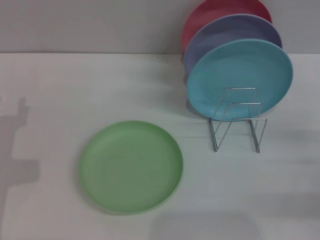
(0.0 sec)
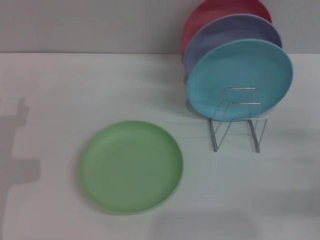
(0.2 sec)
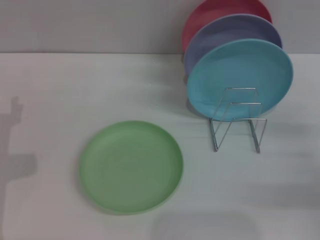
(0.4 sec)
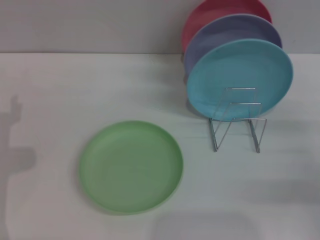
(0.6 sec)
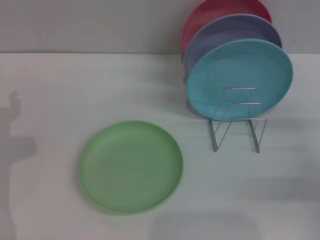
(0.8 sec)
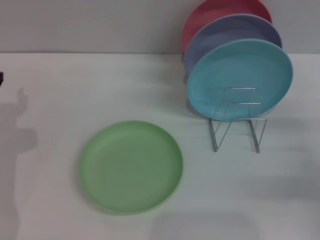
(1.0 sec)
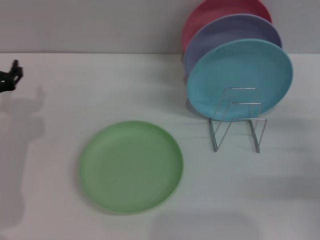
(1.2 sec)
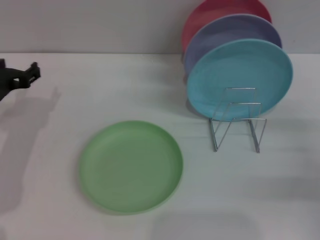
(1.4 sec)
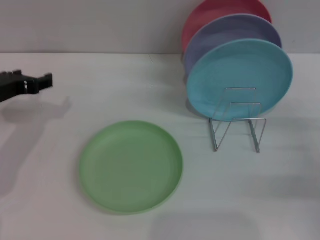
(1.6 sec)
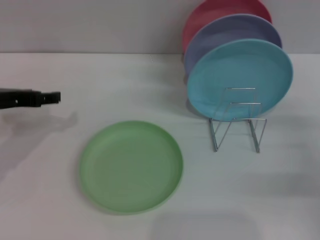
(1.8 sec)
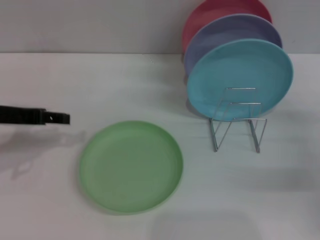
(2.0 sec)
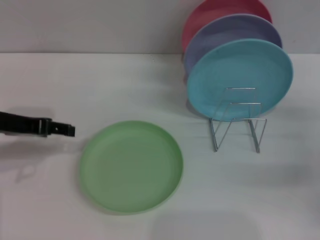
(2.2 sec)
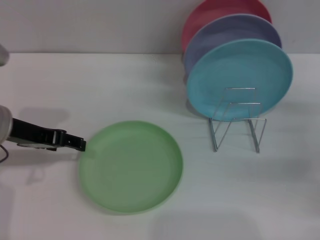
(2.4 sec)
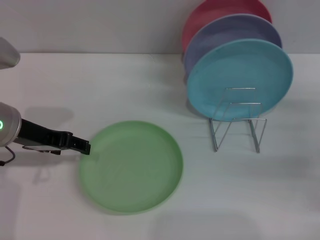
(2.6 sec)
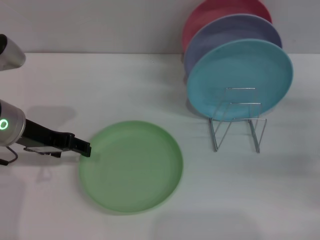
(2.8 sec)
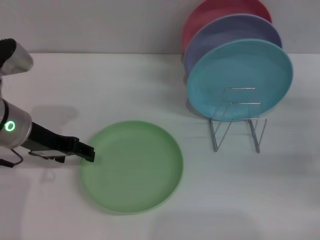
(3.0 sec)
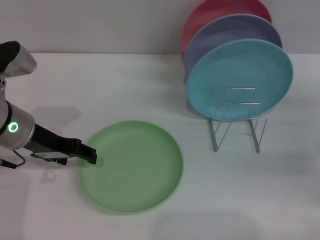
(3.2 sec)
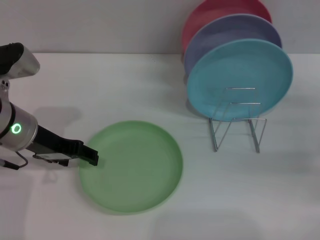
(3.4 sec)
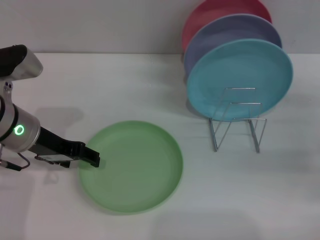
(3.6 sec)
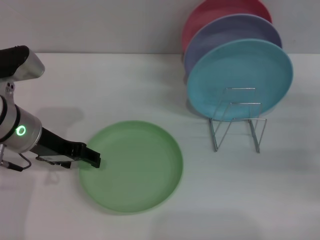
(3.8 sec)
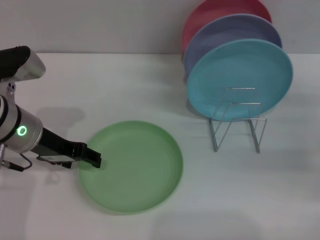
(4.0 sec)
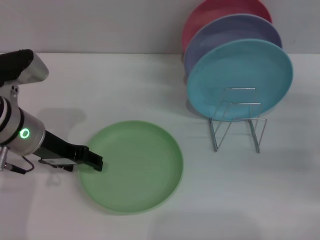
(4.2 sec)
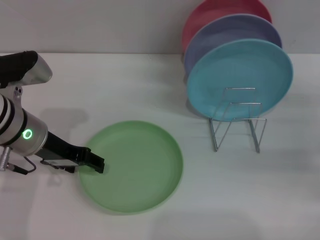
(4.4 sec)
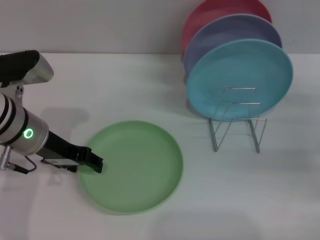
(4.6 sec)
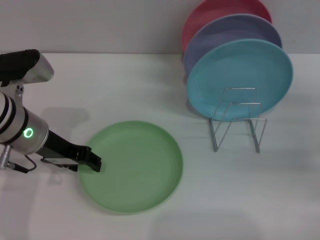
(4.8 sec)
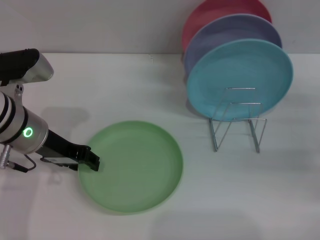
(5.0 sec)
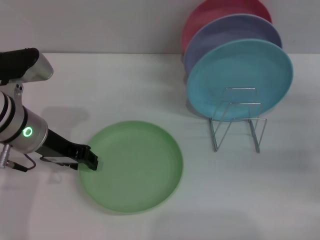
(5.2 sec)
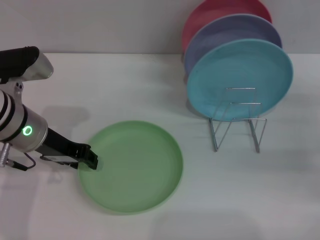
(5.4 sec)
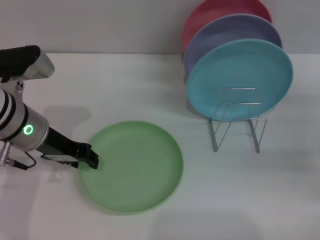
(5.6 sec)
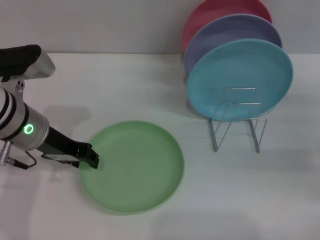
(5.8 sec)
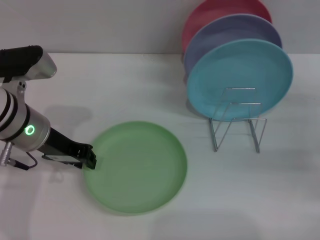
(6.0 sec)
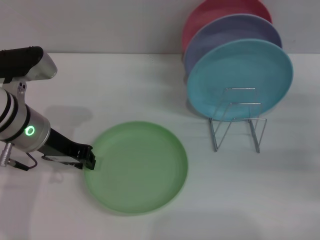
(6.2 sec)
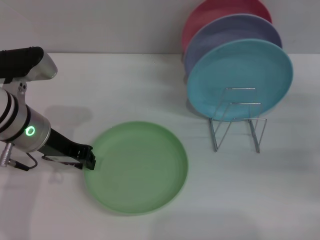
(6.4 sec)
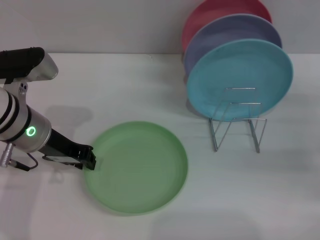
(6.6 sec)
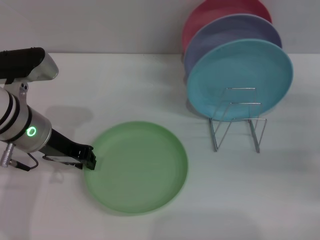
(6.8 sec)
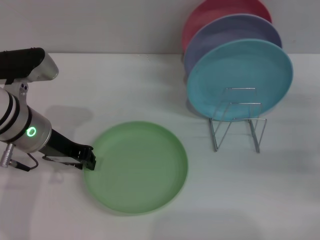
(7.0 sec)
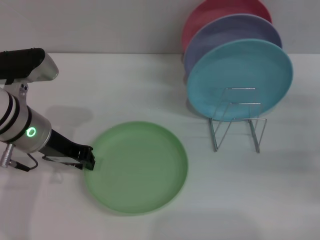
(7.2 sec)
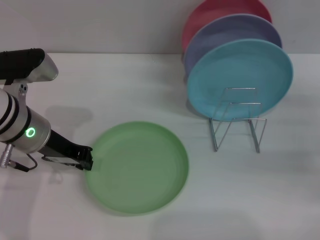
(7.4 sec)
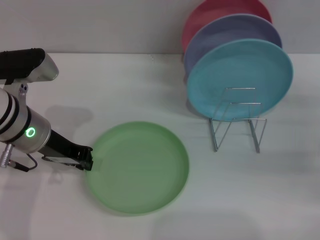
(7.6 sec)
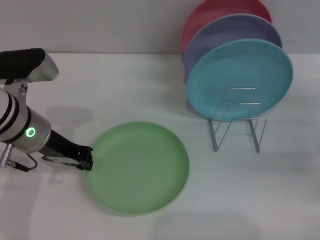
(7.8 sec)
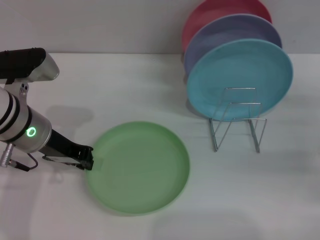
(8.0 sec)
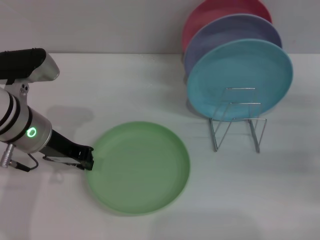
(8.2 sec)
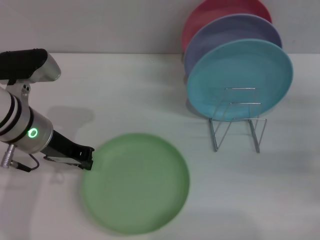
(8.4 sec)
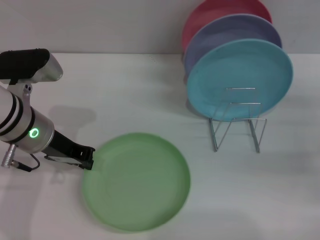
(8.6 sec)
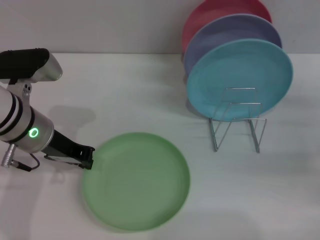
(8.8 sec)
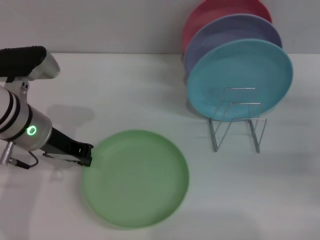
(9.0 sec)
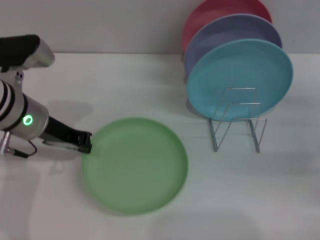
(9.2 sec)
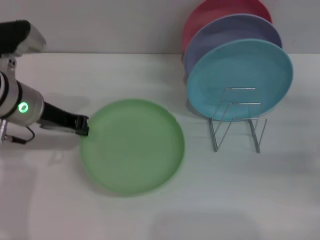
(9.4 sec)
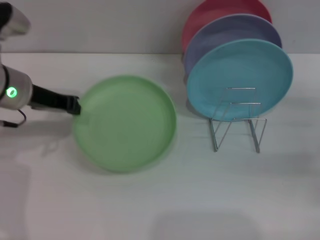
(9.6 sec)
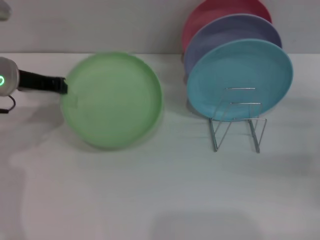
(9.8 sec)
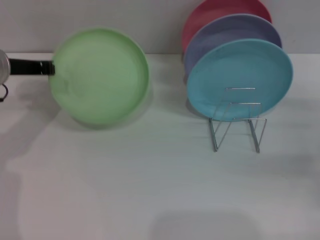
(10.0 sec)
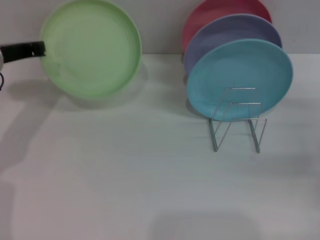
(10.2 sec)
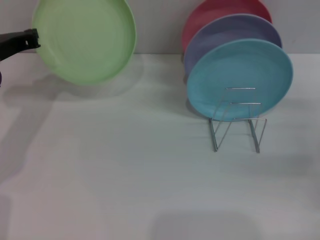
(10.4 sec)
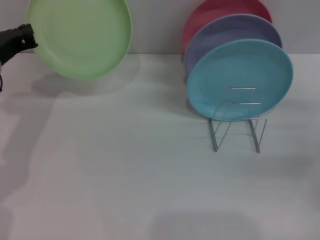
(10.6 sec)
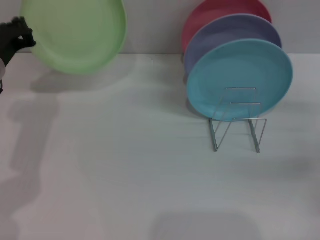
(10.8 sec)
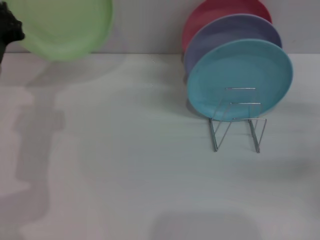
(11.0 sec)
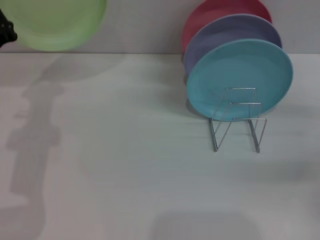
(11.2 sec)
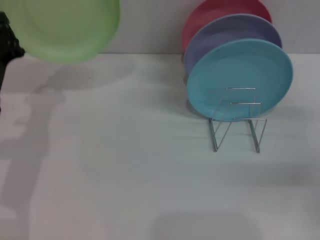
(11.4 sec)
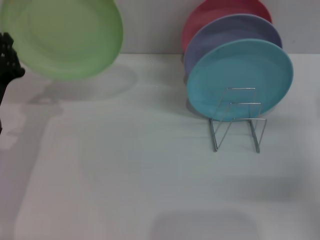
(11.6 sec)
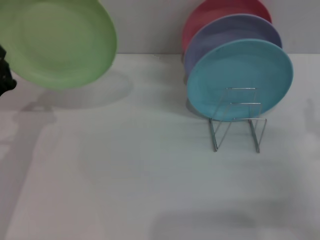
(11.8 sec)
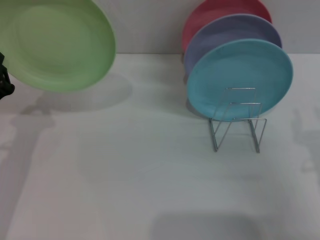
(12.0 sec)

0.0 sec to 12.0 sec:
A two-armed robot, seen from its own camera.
Task of the whole recording: Grip the plate with one hand, pass it to the other, then set it on the shelf.
Step, 0.0 sec to 9.8 sec: Pick up the plate with the left gripper.
0.0 sec to 1.6 sec: The left gripper moves upward and forward, roughly 10 cm.
1.6 sec to 3.0 sec: The left gripper goes about 5 cm to the right.
3.0 sec to 4.4 sec: The grippers move only a little.
4.4 sec to 6.0 sec: The left gripper closes its fingers.
6.0 sec to 7.6 sec: The left gripper closes its fingers.
7.6 sec to 9.0 sec: Both grippers stay about where they are.
9.0 sec to 10.4 sec: The left gripper goes some 5 cm to the left.
10.4 sec to 12.0 sec: The right gripper moves to the left and backward, about 15 cm; the left gripper is displaced backward and downward by roughly 15 cm.

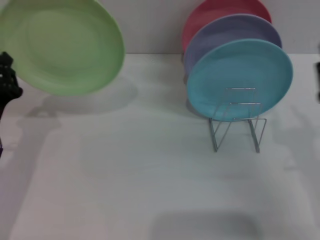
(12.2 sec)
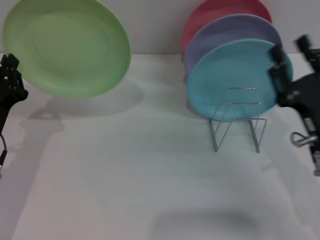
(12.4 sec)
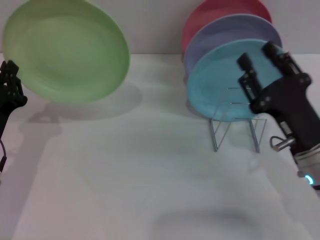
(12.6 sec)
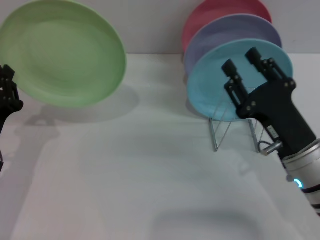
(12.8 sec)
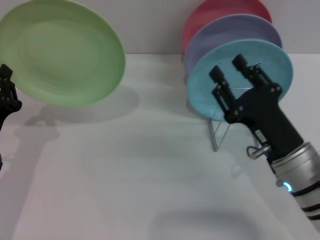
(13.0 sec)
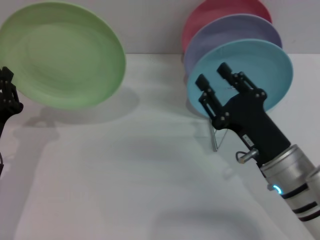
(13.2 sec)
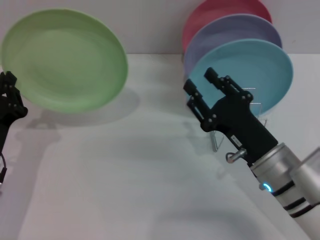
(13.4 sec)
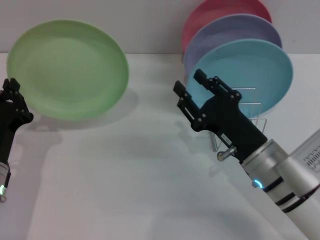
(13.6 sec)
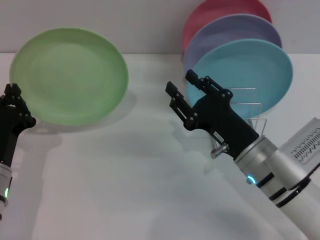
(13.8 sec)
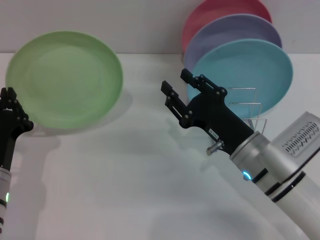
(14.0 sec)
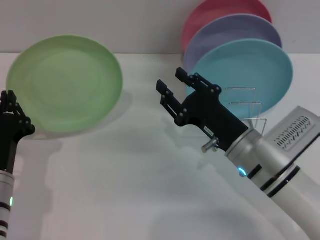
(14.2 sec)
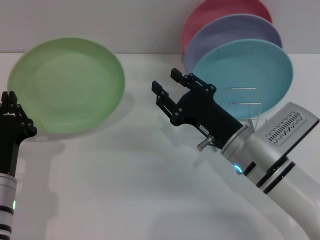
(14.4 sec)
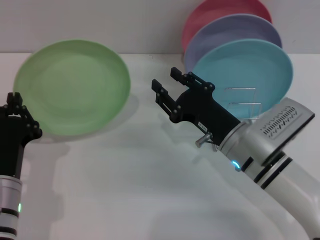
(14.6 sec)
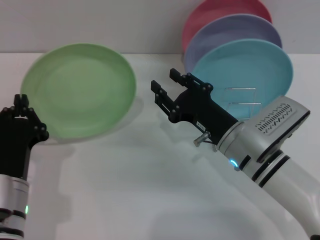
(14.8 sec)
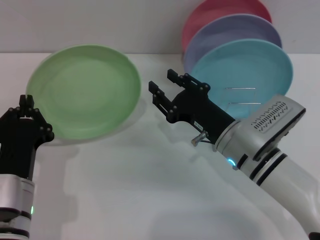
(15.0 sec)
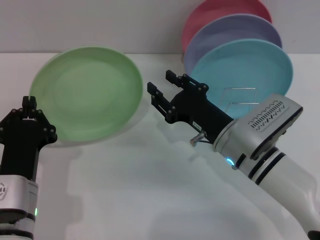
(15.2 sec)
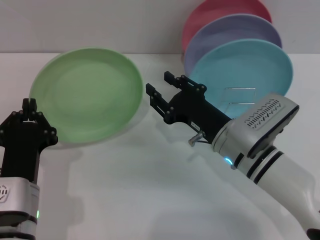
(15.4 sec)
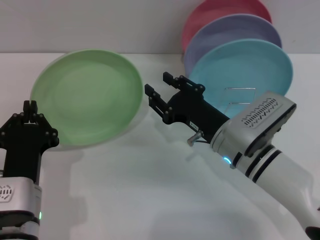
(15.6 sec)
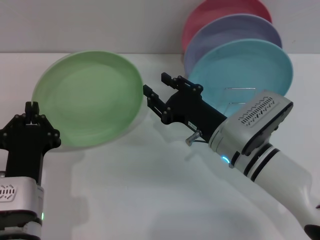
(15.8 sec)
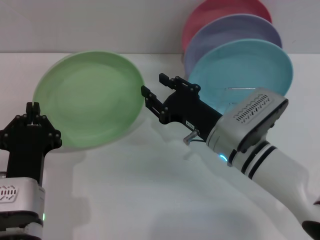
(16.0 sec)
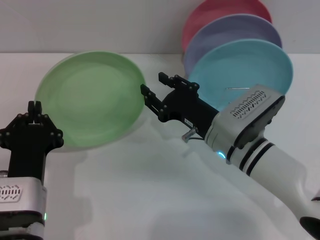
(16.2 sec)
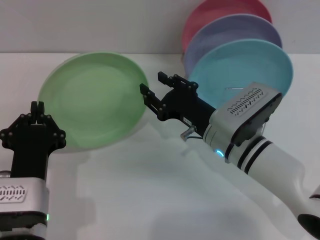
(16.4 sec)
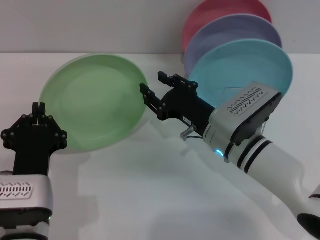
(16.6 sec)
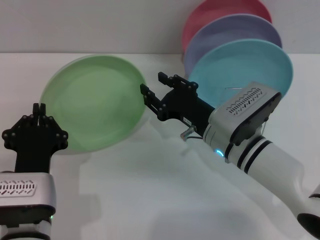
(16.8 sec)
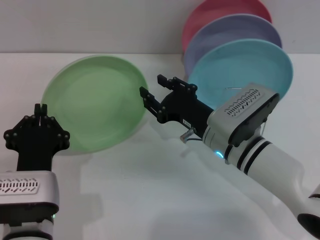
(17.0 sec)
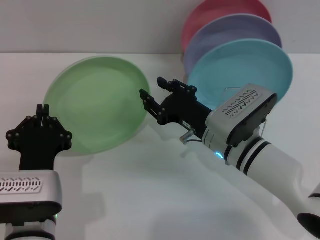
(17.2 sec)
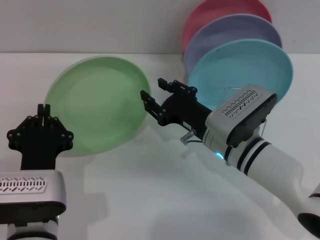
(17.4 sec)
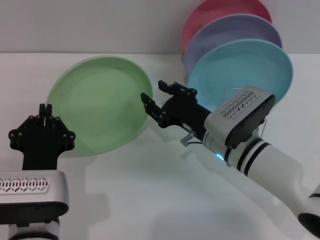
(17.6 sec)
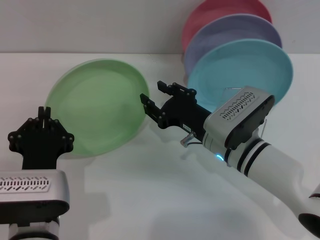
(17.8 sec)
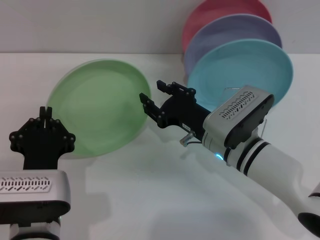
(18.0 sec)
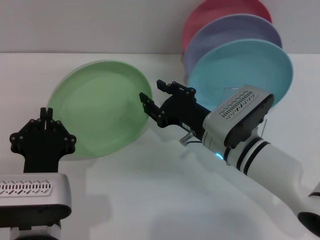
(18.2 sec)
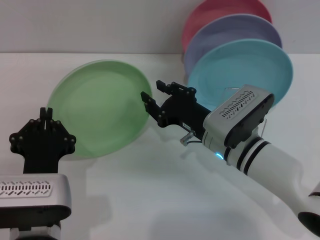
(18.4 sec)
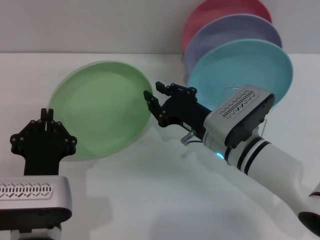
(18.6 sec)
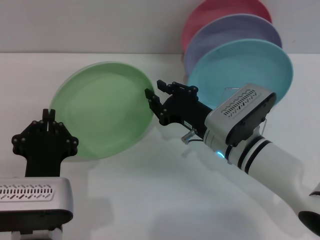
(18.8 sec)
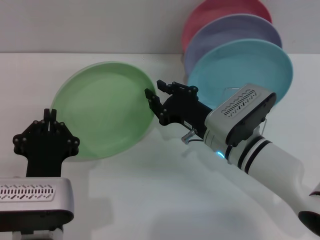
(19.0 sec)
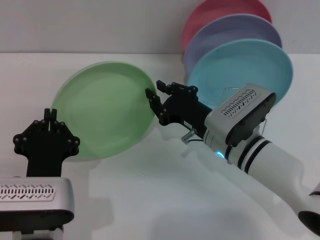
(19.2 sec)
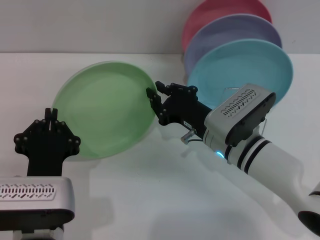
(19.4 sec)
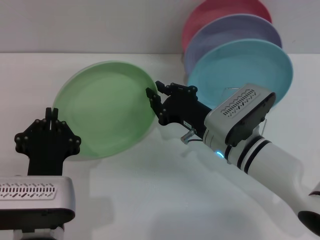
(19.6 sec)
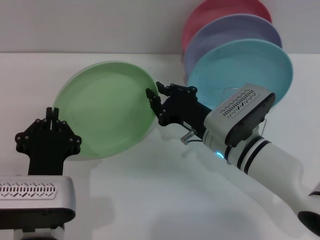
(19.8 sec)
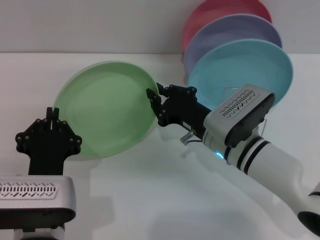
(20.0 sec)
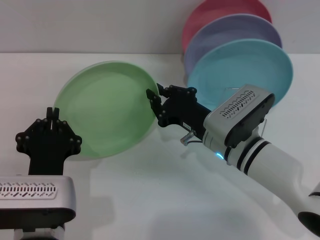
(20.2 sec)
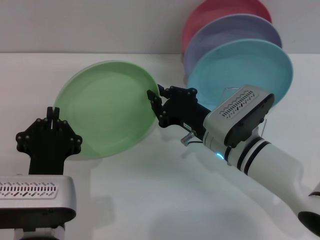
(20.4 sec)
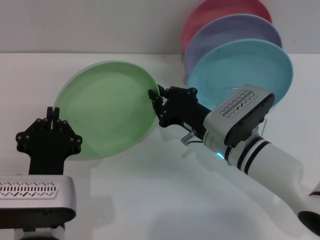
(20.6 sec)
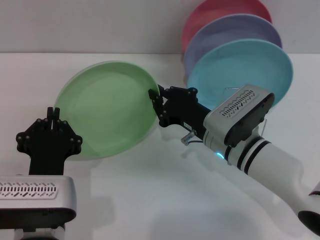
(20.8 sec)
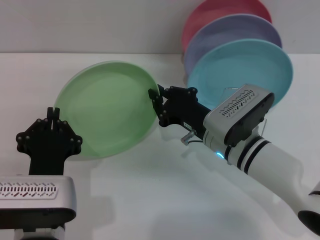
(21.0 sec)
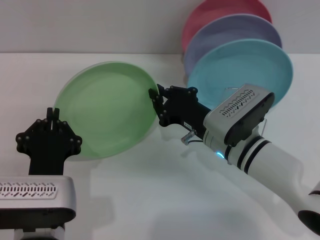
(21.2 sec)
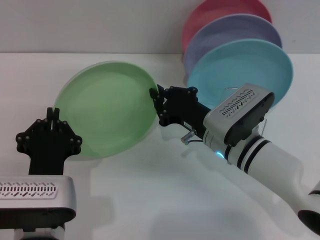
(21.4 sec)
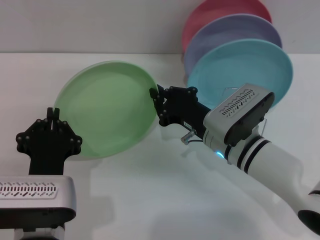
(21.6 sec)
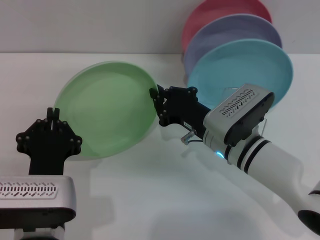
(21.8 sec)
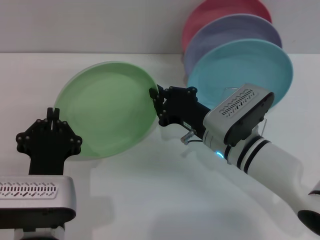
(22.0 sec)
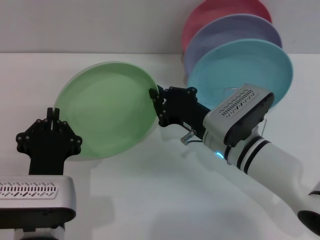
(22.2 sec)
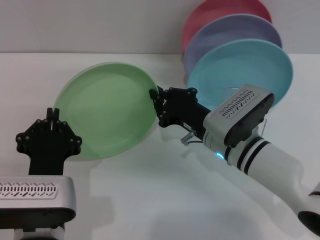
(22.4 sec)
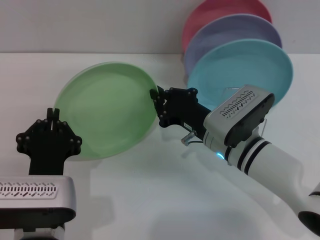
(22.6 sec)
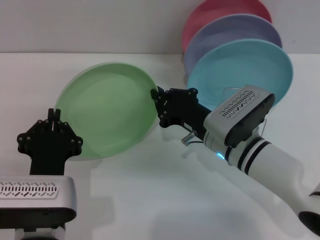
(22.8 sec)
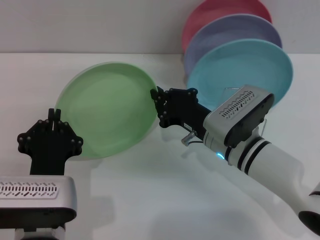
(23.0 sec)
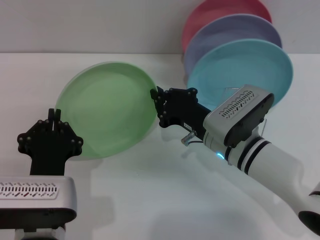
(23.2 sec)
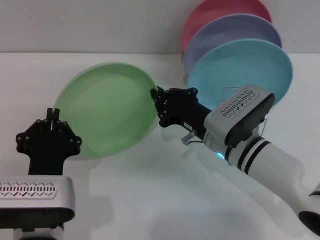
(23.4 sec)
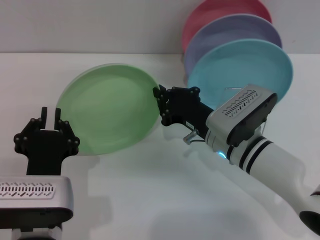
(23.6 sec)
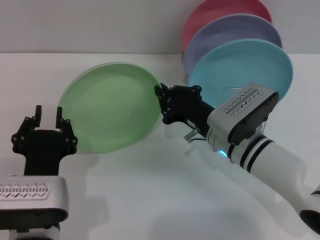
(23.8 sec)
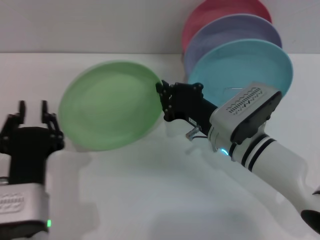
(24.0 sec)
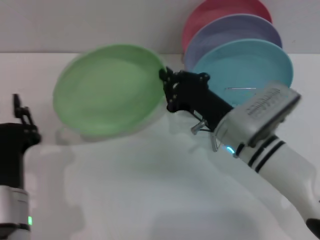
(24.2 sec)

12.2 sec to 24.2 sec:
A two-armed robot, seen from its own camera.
Task of the whole recording: Grip the plate with one hand, pass it to the other, then set it on the shelf.
Step, 12.2 sec to 24.0 sec: Pass the plate from the left gripper to the right gripper.
12.2 sec to 13.8 sec: The right gripper heads to the left, covering about 10 cm.
13.8 sec to 15.2 sec: The left gripper heads to the right, covering about 5 cm.
15.2 sec to 18.2 sec: The grippers stay close to where they were, moving slightly.
18.2 sec to 19.8 sec: The right gripper closes up.
19.8 sec to 22.6 sec: Both grippers stay about where they are.
